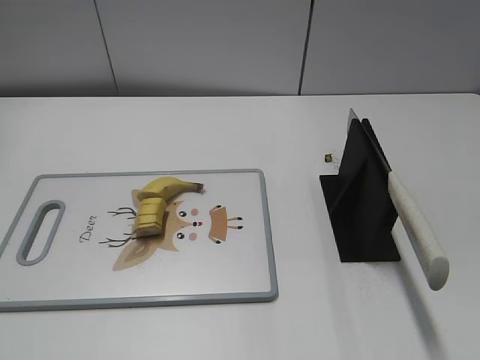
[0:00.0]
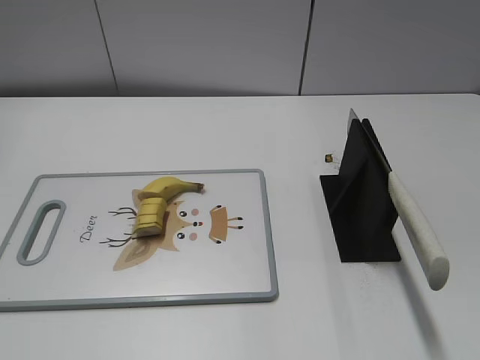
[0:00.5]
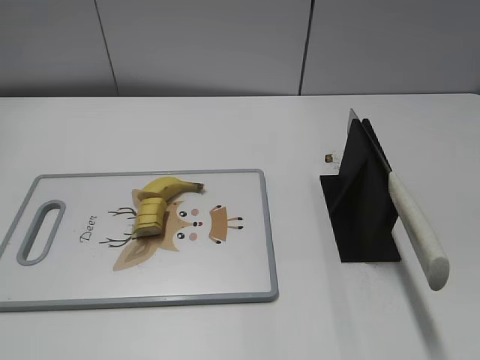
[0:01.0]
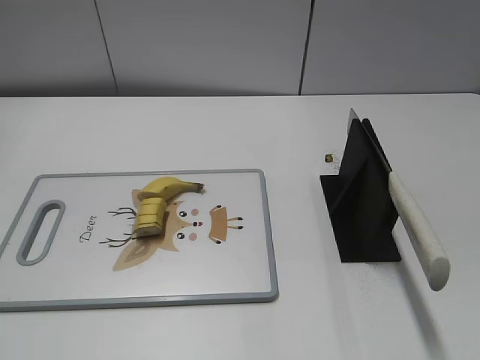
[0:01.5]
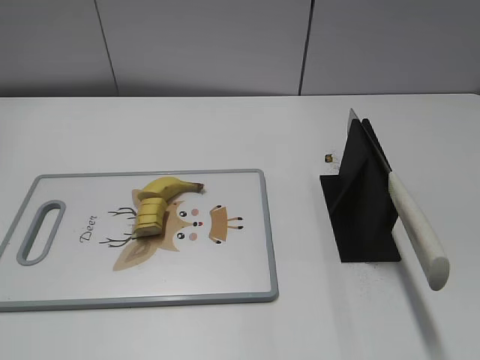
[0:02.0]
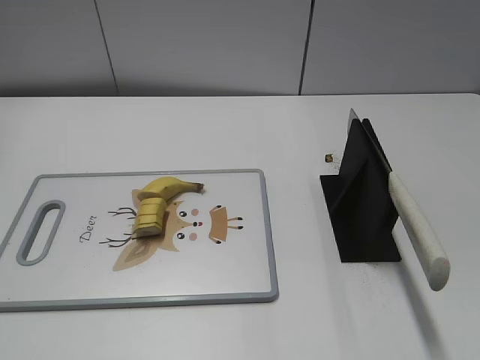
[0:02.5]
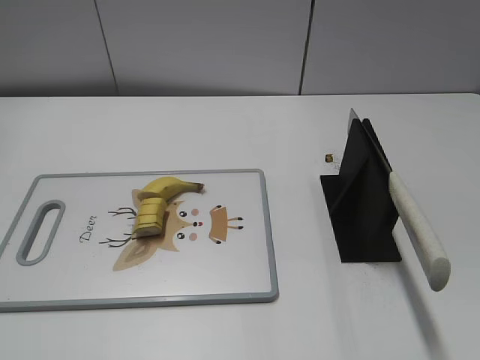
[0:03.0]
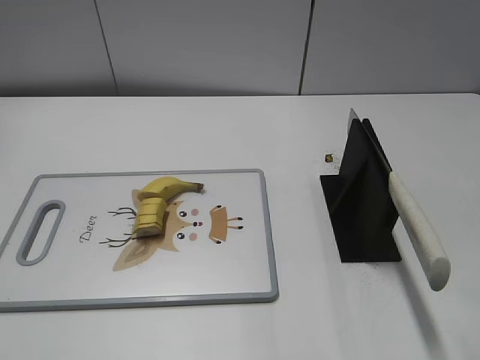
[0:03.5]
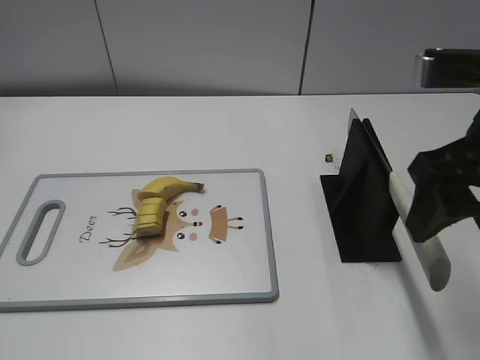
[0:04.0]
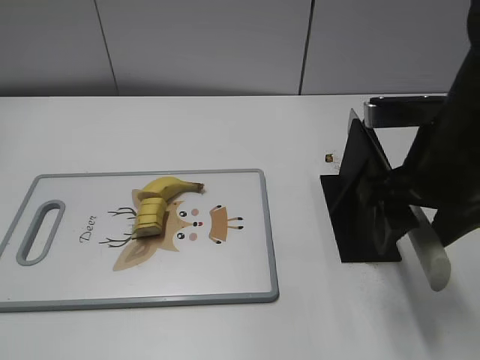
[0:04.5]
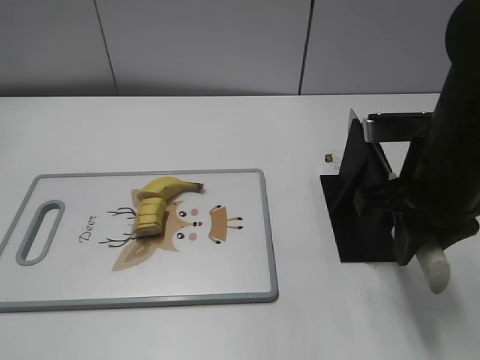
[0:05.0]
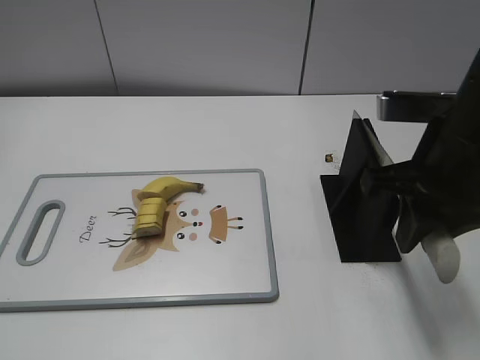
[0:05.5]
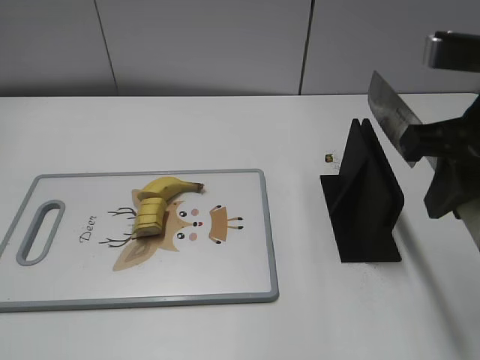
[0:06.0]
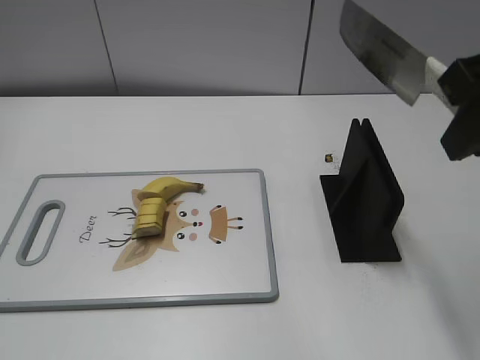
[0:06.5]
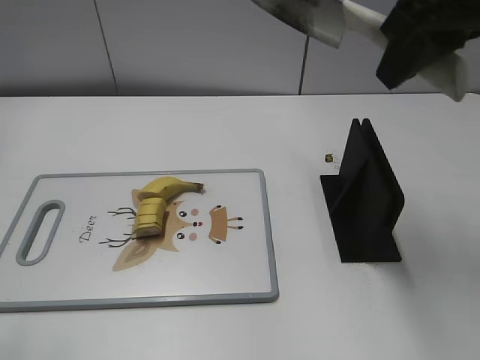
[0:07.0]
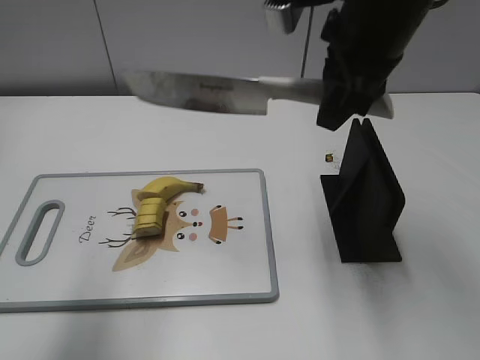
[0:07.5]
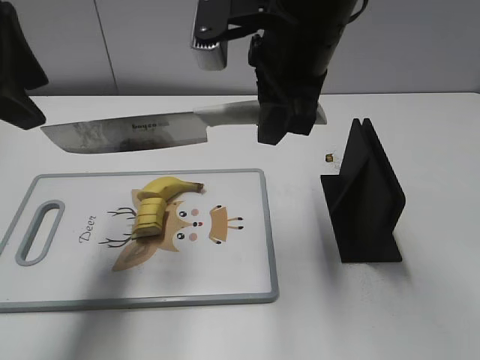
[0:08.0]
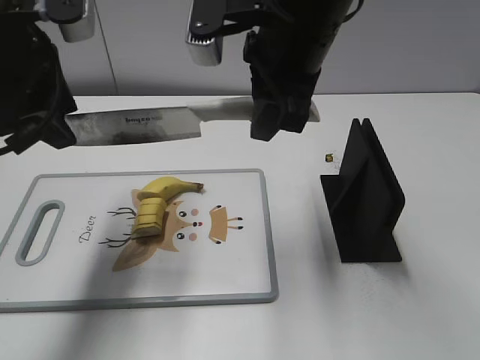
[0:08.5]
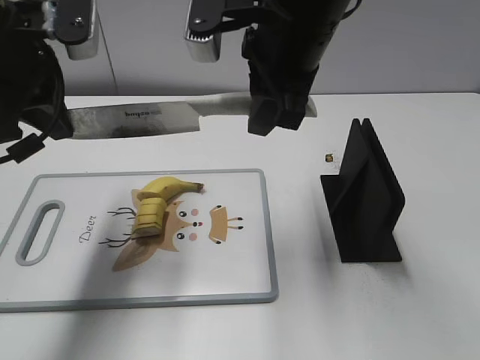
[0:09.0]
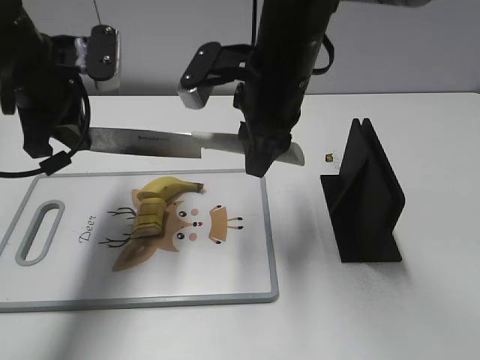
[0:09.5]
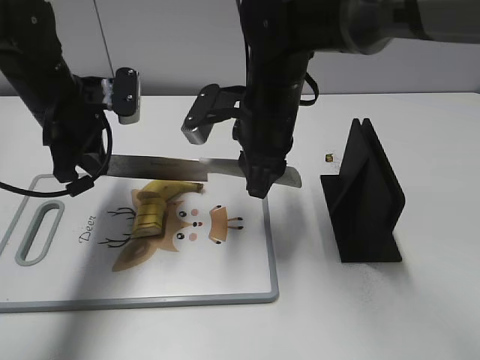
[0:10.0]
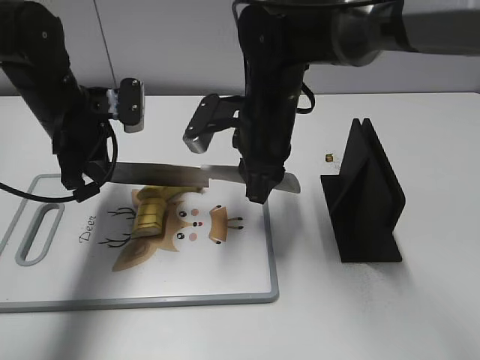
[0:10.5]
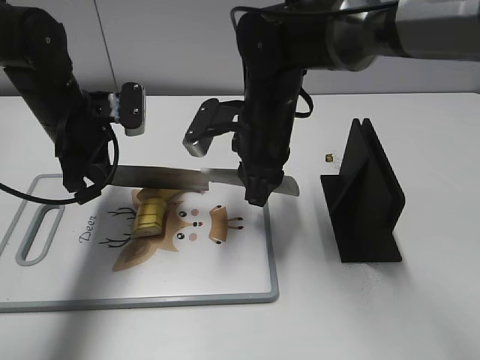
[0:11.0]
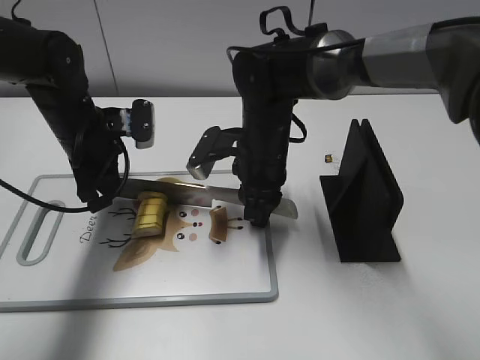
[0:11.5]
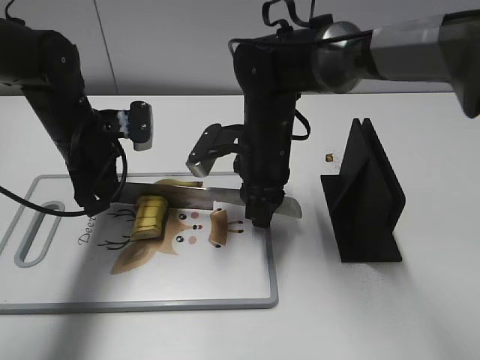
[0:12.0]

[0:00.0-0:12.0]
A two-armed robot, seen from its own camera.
Task of the whole recording: cut banana.
Step, 0:00.0 to 0:06.0: Grab the knife handle with your right hand.
Step, 0:06.5 to 0:11.0: Lift the knife with your right hand.
0:02.0 to 0:04.0: The right gripper heads forward and to the left, covering some 25 cm.
0:04.0 to 0:06.0: The right gripper reaches roughly 5 cm downward, then returns, and closes up.
0:06.0 to 0:08.0: The right gripper travels to the left and forward by roughly 15 cm, while the left gripper goes some 25 cm forward.
0:08.0 to 0:10.0: The left gripper shifts roughly 20 cm downward and forward, and closes up. Meanwhile the right gripper is displaced downward by some 10 cm.
0:10.0 to 0:12.0: The right gripper travels downward by some 5 cm; the left gripper ends up about 5 cm from where it was.

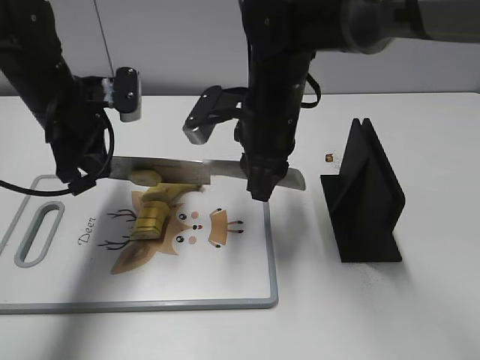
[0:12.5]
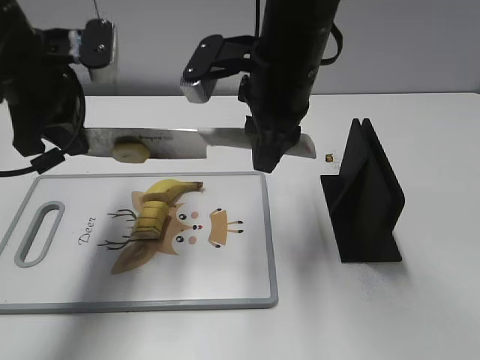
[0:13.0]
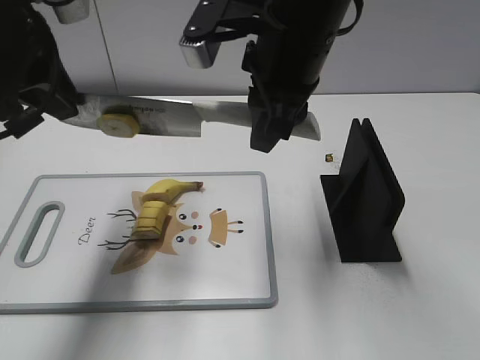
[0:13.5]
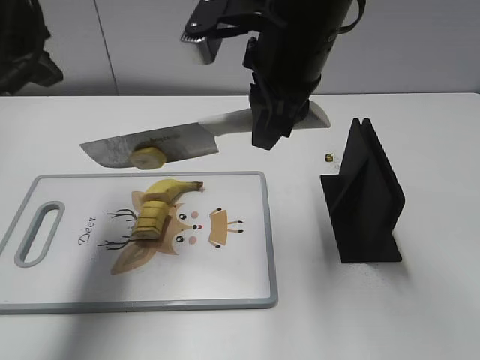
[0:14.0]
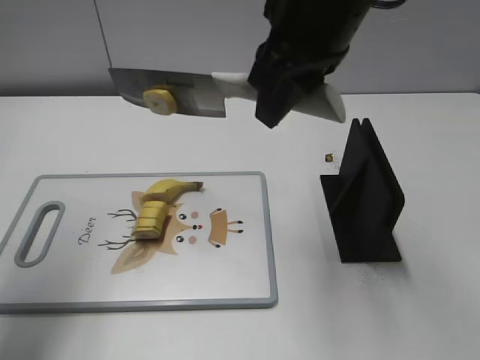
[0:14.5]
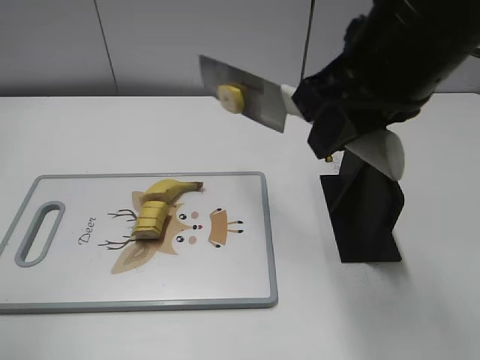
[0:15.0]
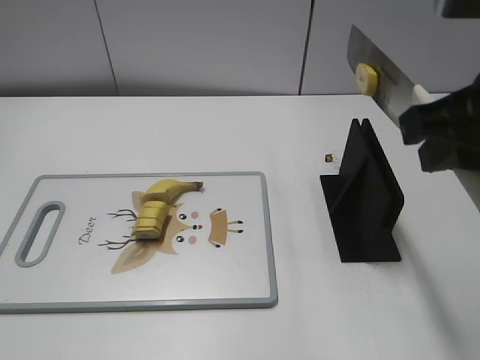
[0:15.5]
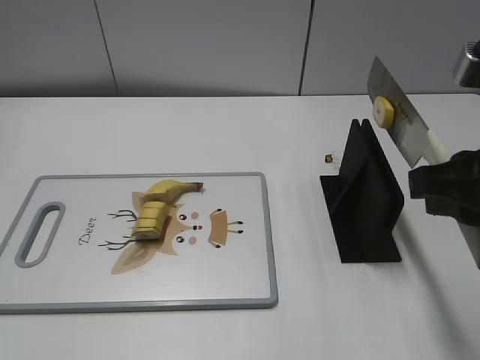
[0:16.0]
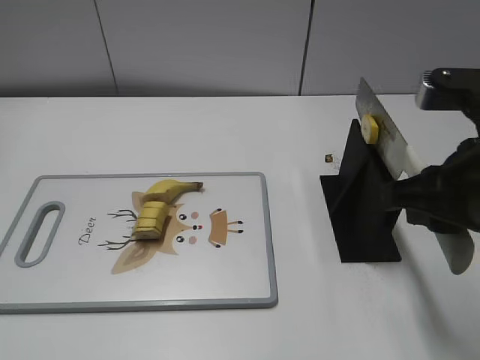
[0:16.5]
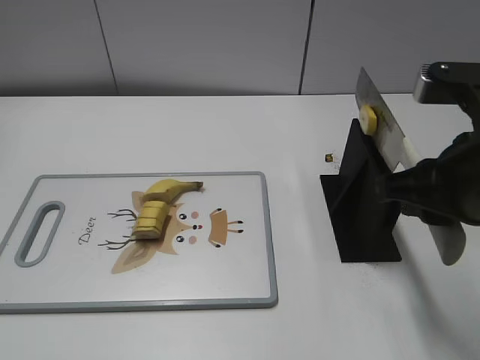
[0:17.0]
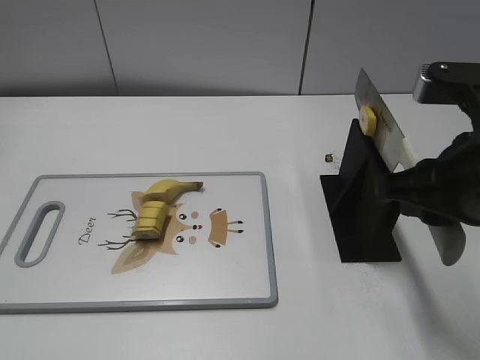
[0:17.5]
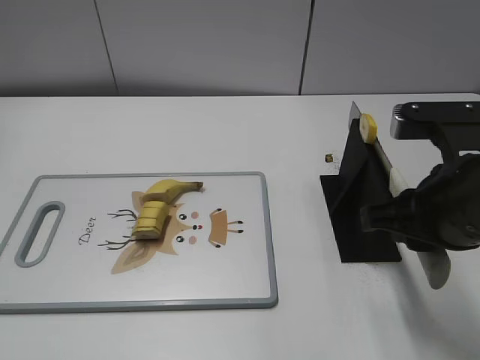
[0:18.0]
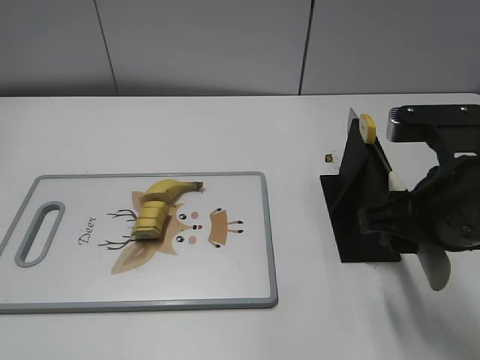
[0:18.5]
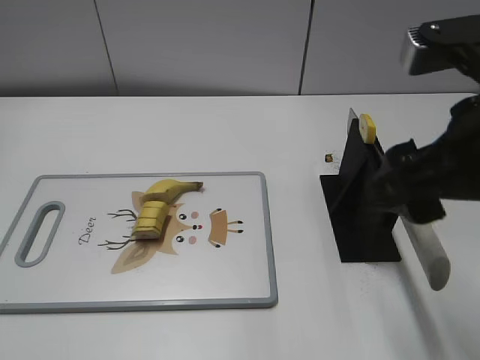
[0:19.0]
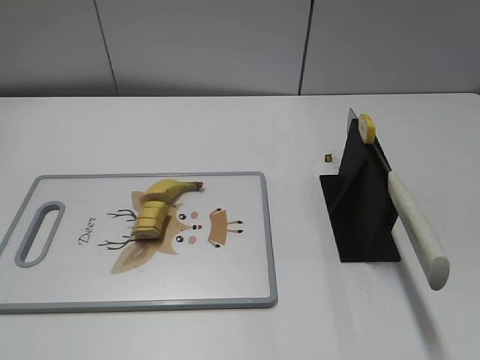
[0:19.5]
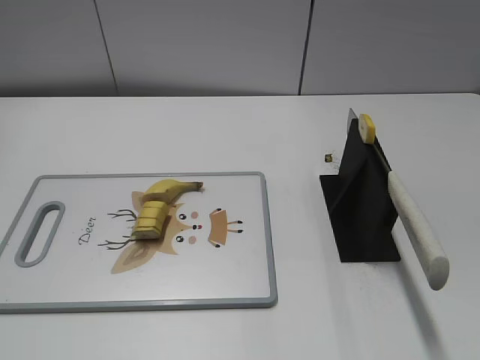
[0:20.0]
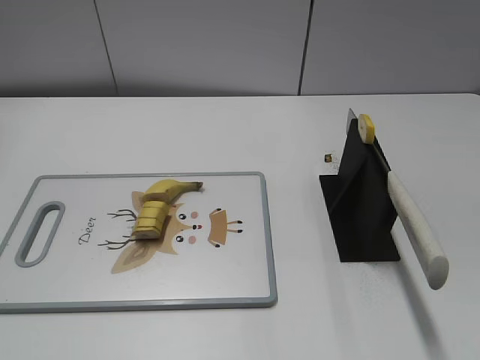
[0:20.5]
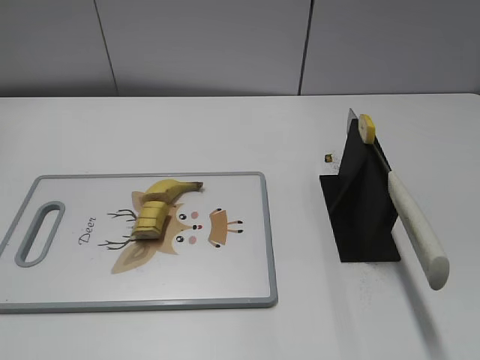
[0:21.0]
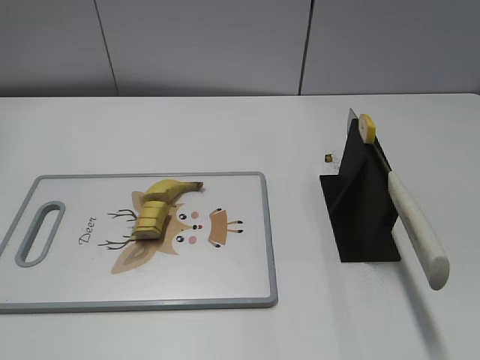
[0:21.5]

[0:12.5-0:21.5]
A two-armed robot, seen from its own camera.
Task of the whole recording: cut banana.
Step, 0:12.5 to 0:14.5: Cut the banana with your right hand.
Step, 0:15.0 to 0:16.5: Lift the knife with your right hand.
Step, 0:17.0 to 0:21.5: Place the knife on the storage rack with your right hand.
0:12.5 to 0:14.5: The right gripper is displaced upward and backward by about 15 cm. The left gripper heads upward, backward and to the left, covering some 25 cm, and opens its fingers.
0:14.5 to 0:17.0: The left gripper shifts approximately 25 cm backward. The right gripper heads to the right, backward and downward, covering about 20 cm.
0:17.0 to 0:19.5: The right gripper shifts some 15 cm backward and to the right, and opens its fingers.

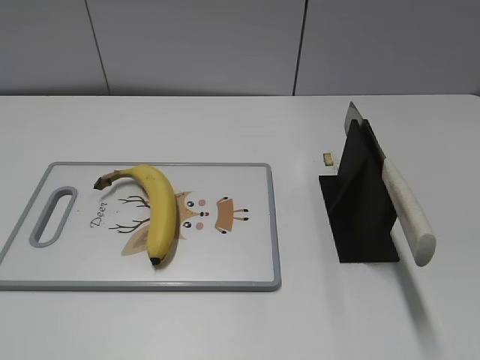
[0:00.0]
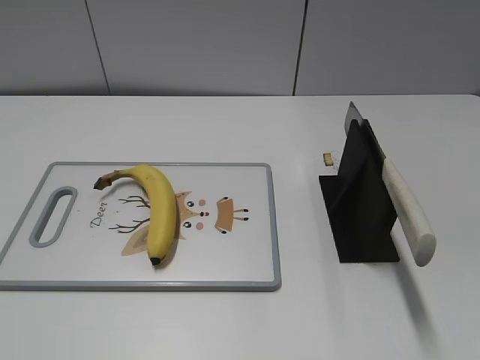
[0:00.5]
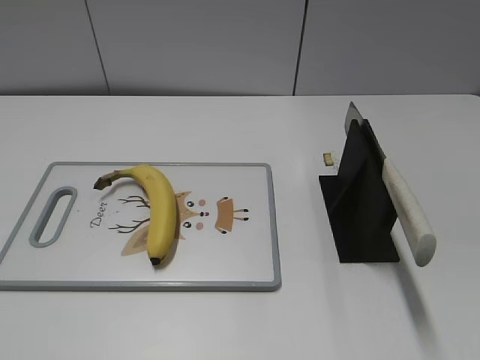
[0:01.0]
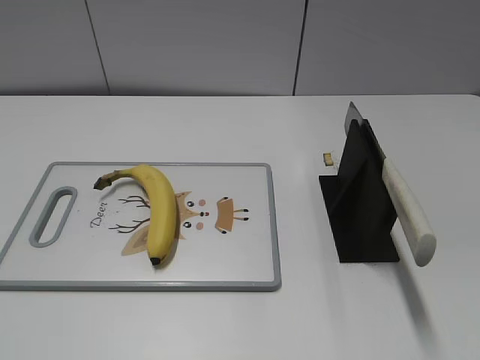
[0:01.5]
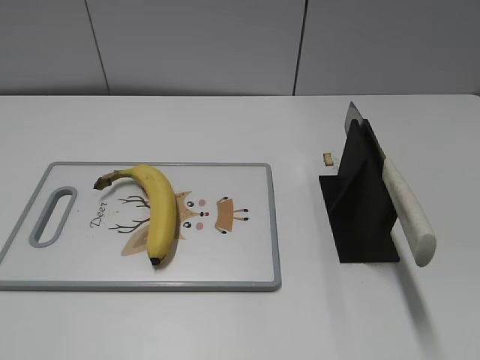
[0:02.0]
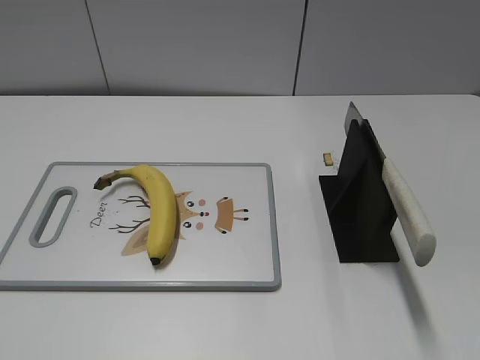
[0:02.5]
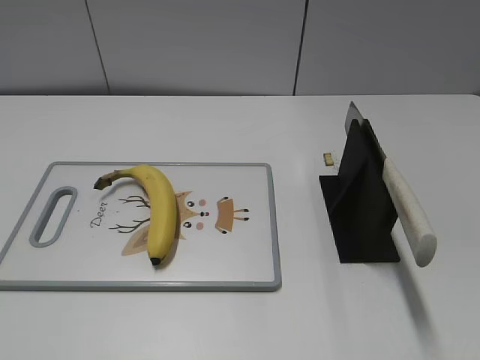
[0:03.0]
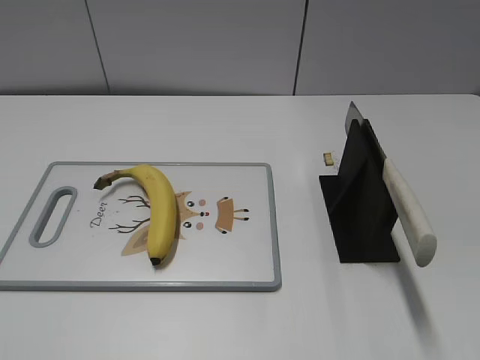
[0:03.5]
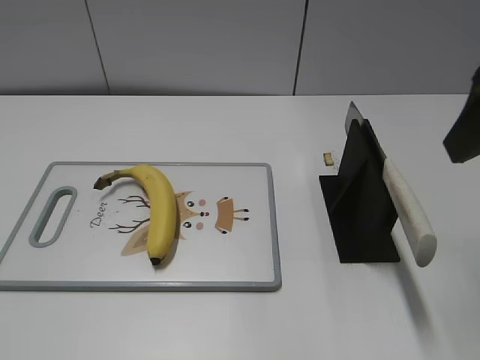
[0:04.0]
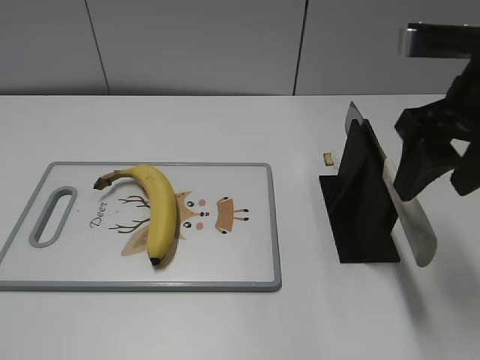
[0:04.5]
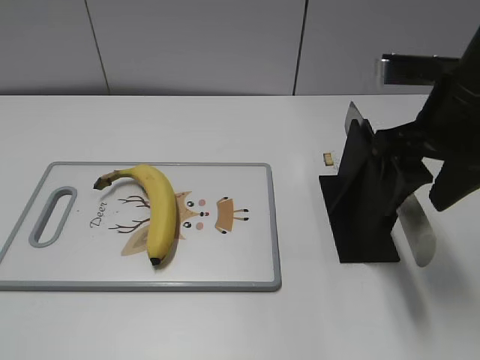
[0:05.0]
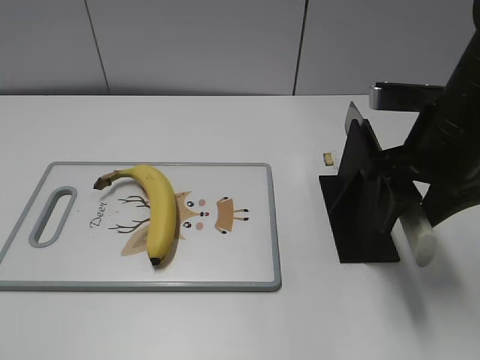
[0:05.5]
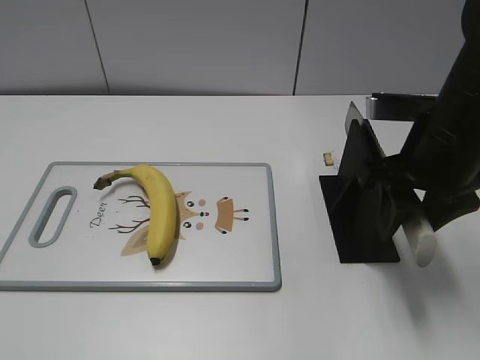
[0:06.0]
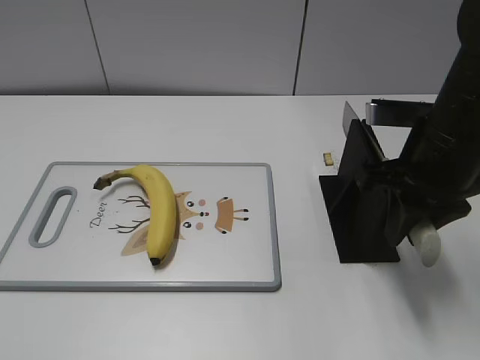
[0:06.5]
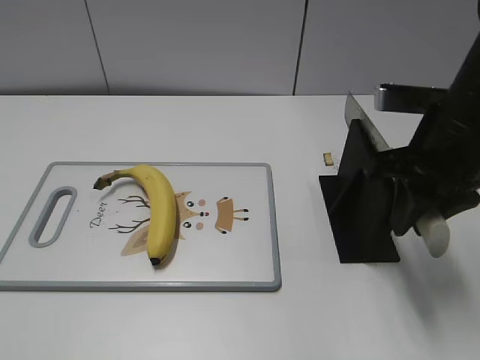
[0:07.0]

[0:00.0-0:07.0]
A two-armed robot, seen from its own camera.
Task of the whole recording: cut banana.
0:03.5 to 0:05.0: The right gripper goes about 20 cm forward, downward and to the left.
0:05.0 to 0:07.0: The right gripper closes its fingers.
